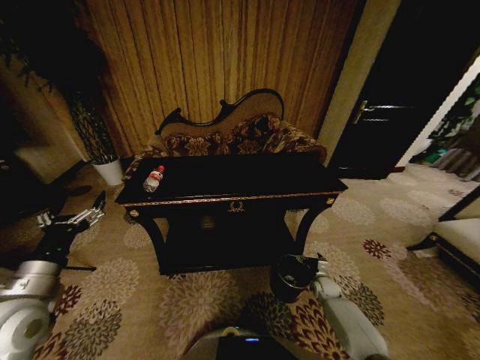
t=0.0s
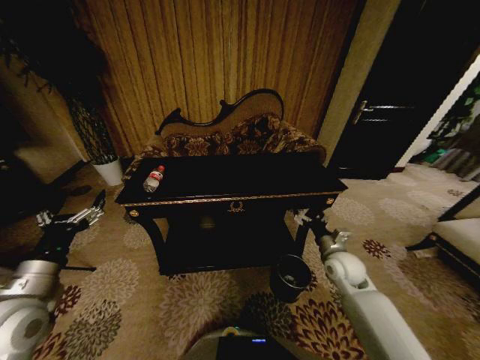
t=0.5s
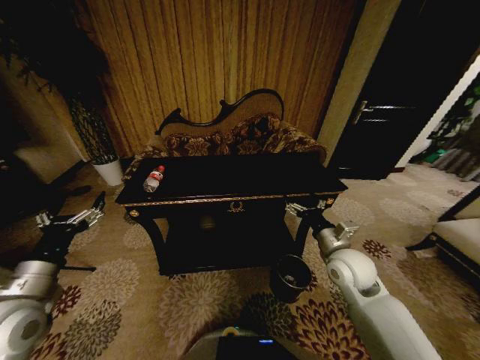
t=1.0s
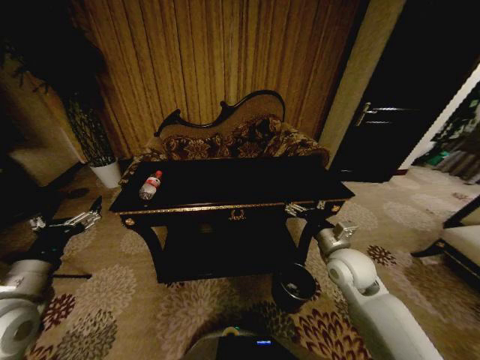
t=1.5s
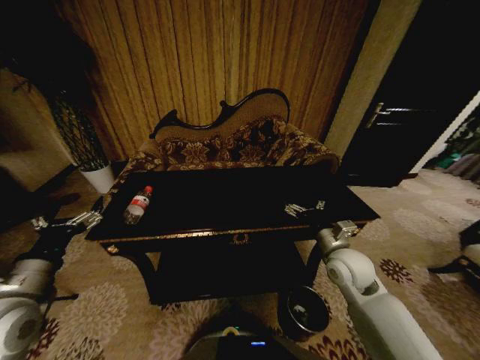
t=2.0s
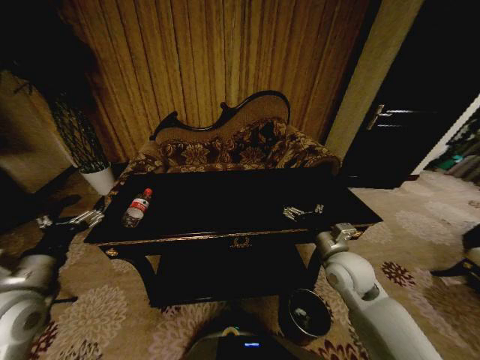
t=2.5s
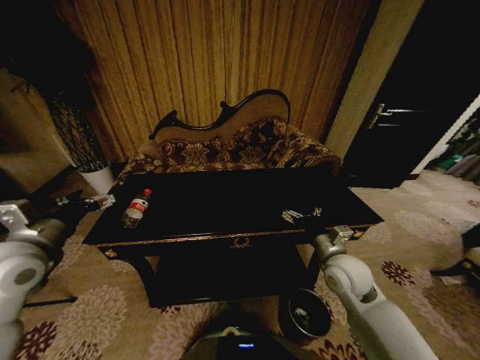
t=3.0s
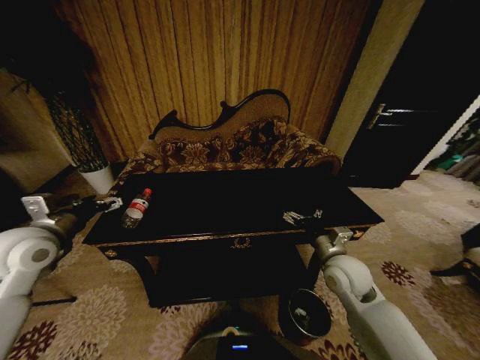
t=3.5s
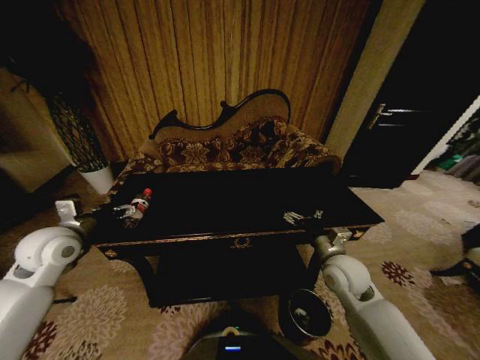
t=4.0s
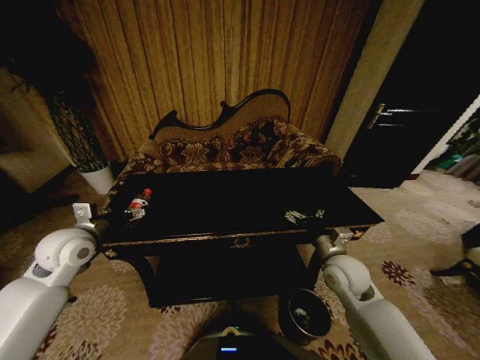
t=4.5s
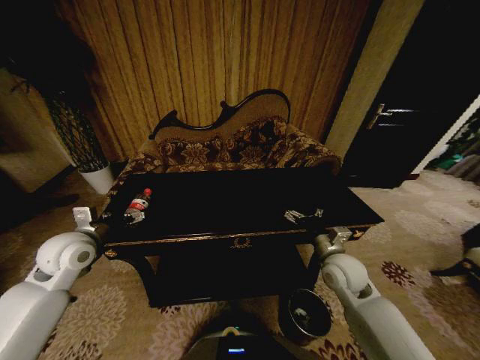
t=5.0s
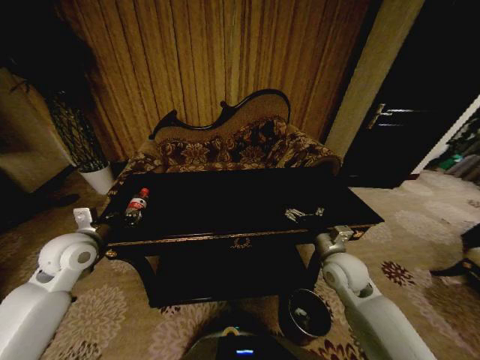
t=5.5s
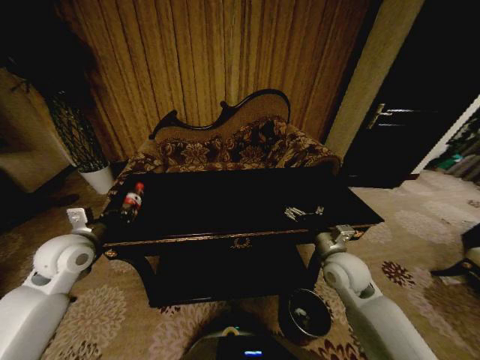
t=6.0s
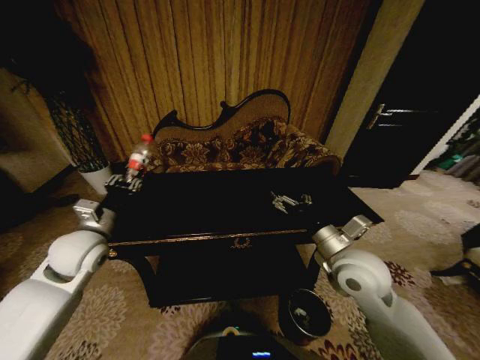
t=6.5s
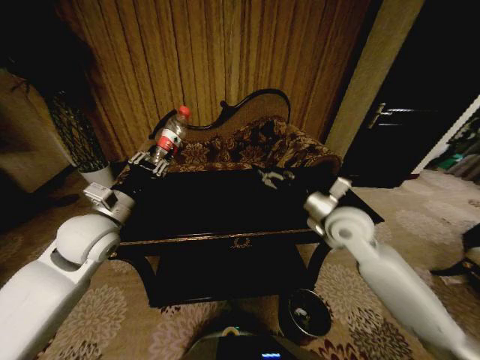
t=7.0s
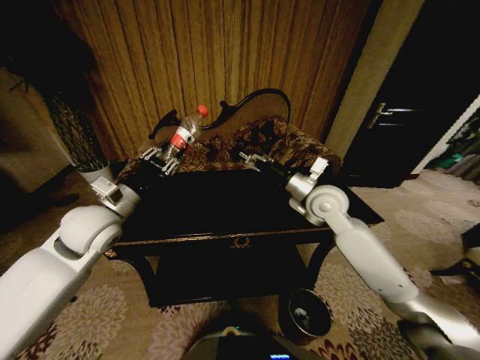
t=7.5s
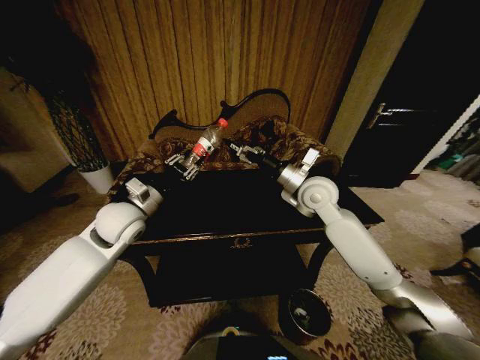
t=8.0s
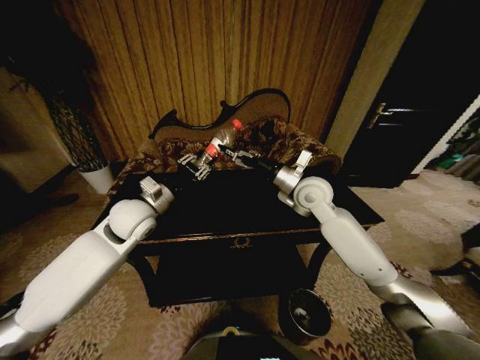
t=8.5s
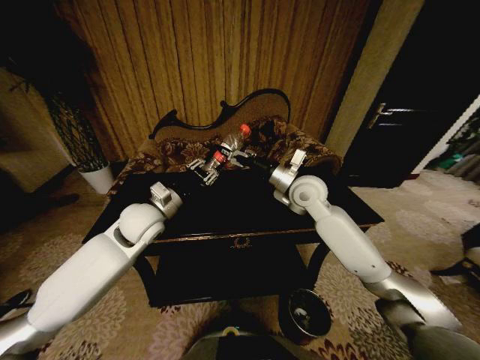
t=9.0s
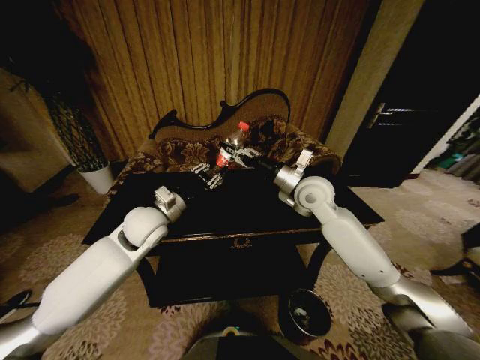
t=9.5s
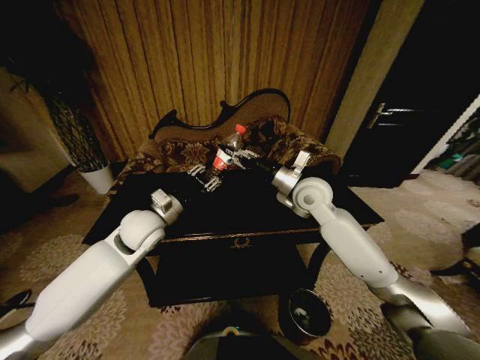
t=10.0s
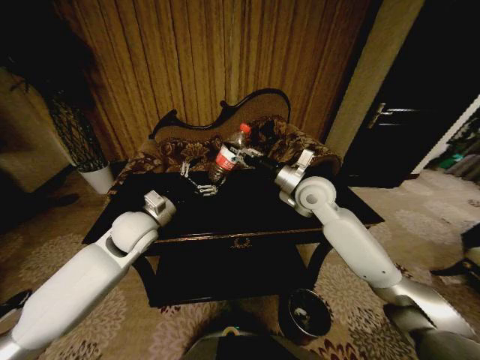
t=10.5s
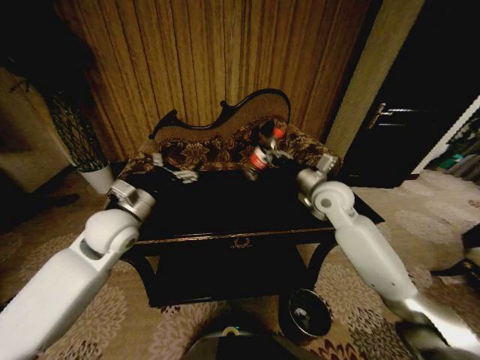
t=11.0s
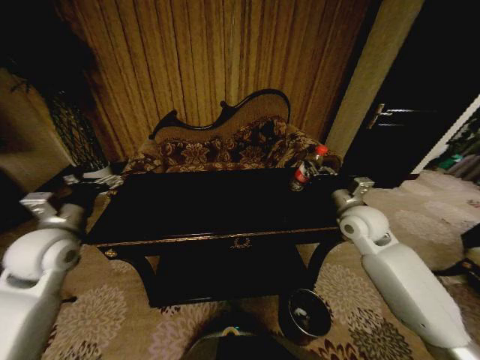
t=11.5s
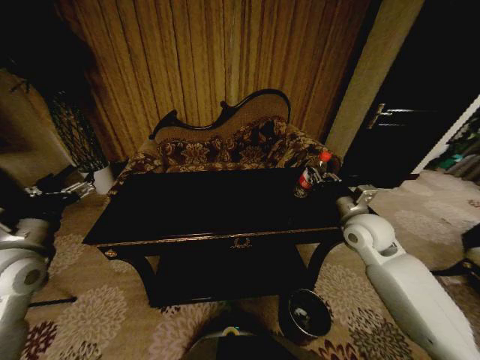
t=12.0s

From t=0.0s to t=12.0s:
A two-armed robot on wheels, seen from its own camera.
Task of the whole recording: Move to the front of the table and place the trash on the table into the trash bin.
From t=0.0s to t=2.0s: The right gripper heads upward, covering some 30 cm.
From t=2.0s to t=4.0s: The left gripper is displaced forward by roughly 15 cm.
From t=4.0s to t=6.0s: The left gripper closes its fingers.
From t=6.0s to t=8.0s: The right gripper is displaced upward, forward and to the left by some 20 cm, while the left gripper goes about 15 cm to the right and forward.
From t=8.0s to t=10.0s: The right gripper closes its fingers.
From t=10.0s to t=12.0s: The right gripper shifts approximately 15 cm to the right, backward and downward. The left gripper goes roughly 20 cm to the left and backward, and opens.

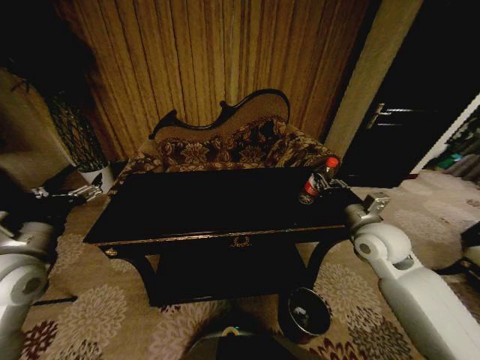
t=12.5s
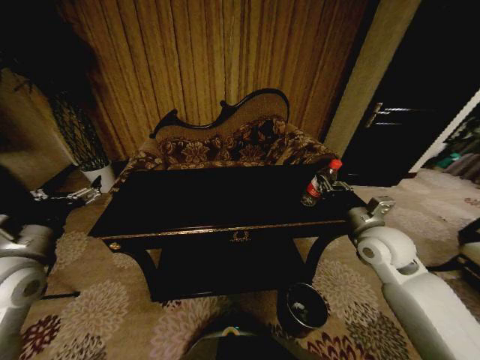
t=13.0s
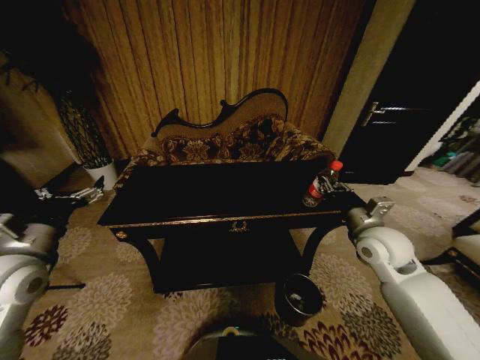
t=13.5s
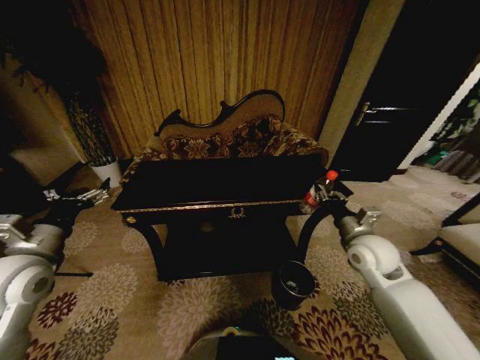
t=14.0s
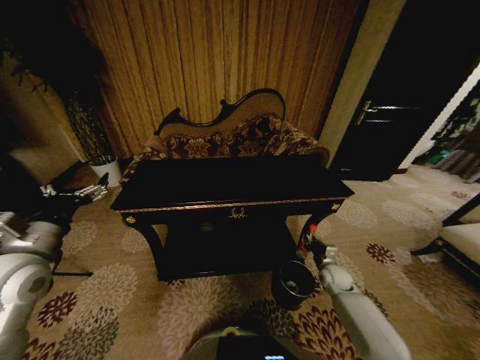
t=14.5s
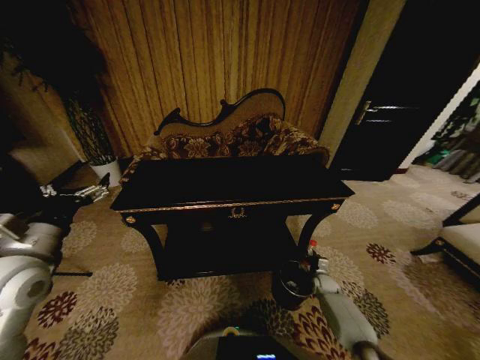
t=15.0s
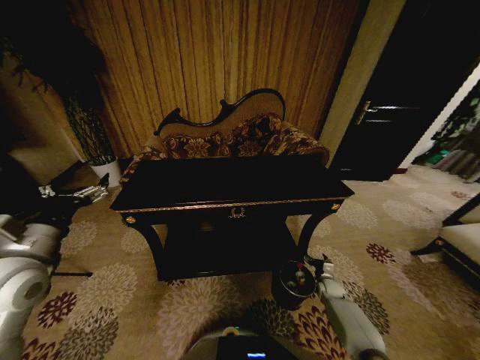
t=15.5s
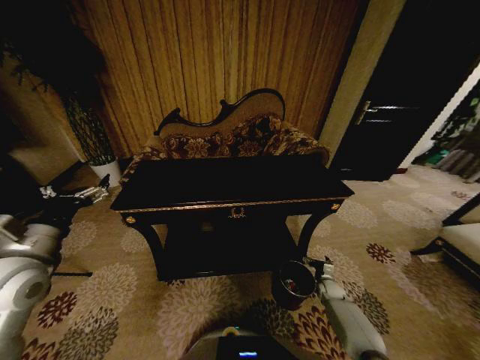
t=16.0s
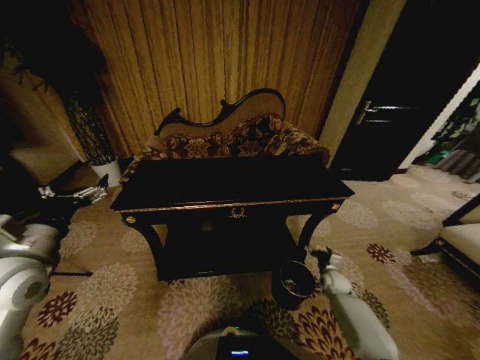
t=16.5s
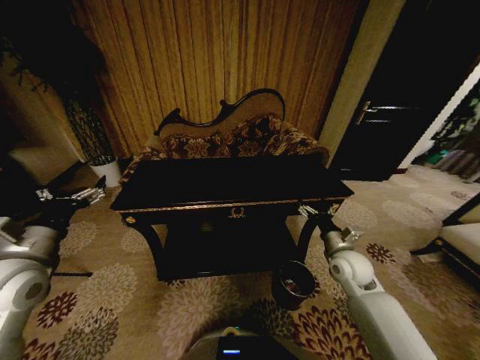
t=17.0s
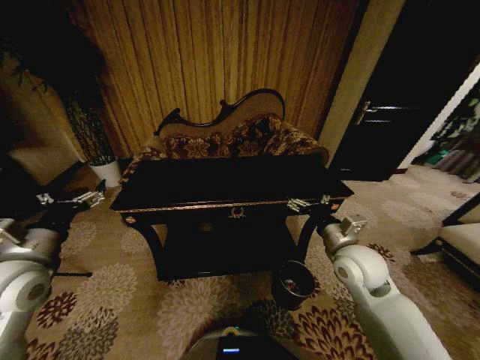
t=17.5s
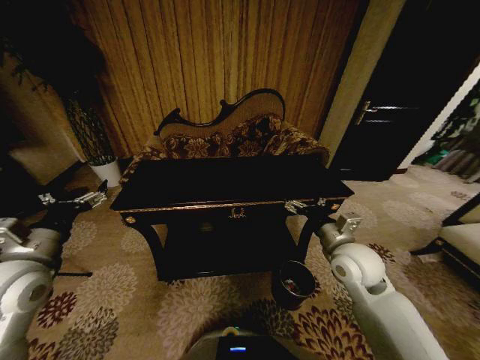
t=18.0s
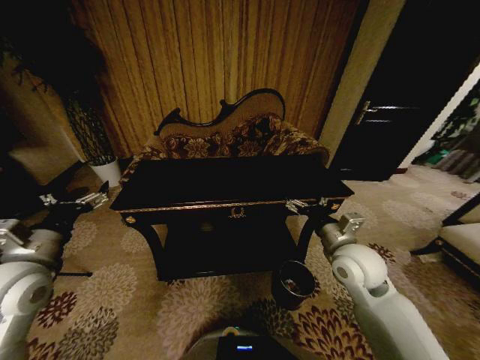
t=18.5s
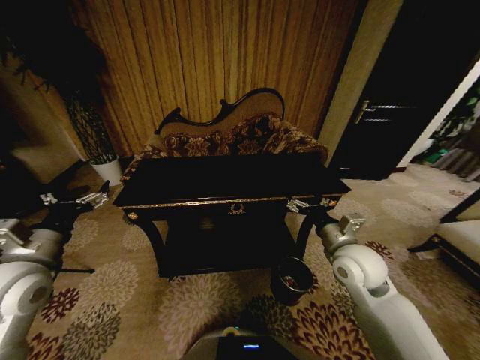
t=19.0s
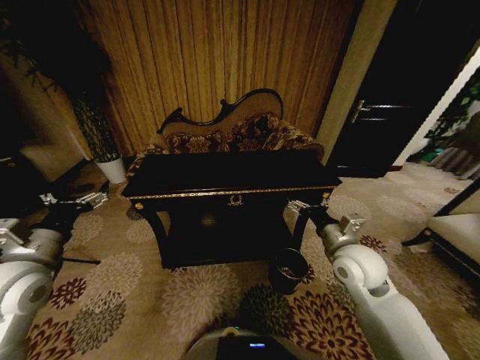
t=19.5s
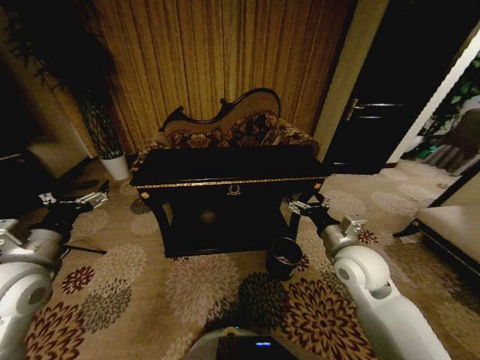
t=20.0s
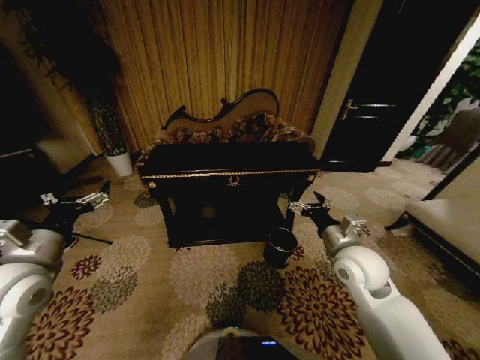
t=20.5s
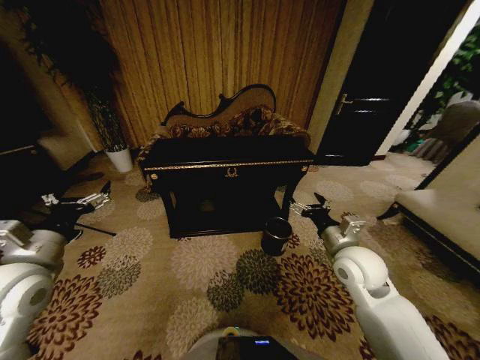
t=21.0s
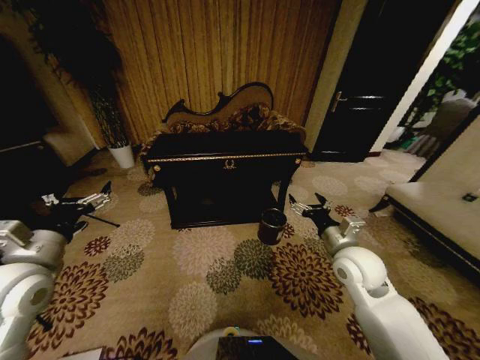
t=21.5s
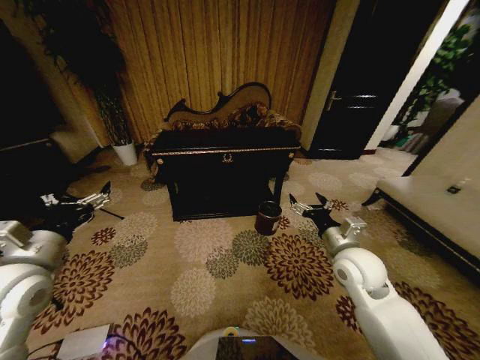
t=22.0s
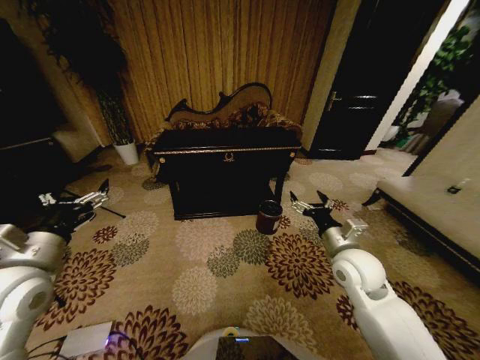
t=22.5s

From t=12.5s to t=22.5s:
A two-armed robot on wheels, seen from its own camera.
Task of the whole recording: Move to the front of the table and place the trash on the table into the trash bin.
From t=12.5s to t=14.5s: The right gripper is displaced downward by about 25 cm.
From t=14.5s to t=16.5s: The right gripper travels downward by some 10 cm, and opens.
From t=16.5s to t=18.5s: The right gripper shifts roughly 35 cm upward and to the left.
